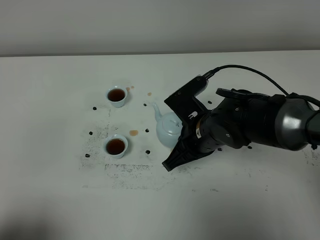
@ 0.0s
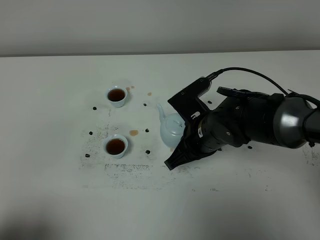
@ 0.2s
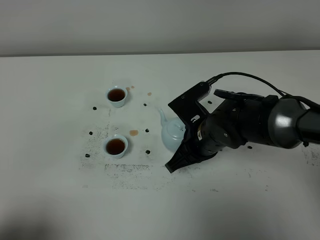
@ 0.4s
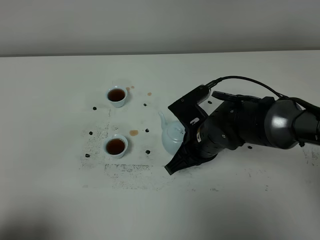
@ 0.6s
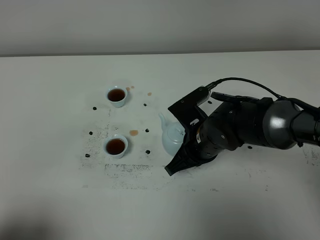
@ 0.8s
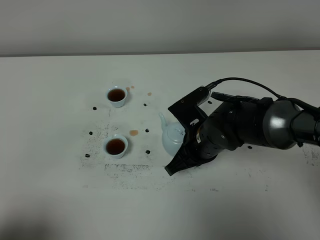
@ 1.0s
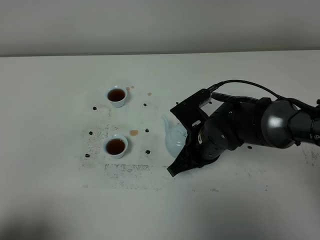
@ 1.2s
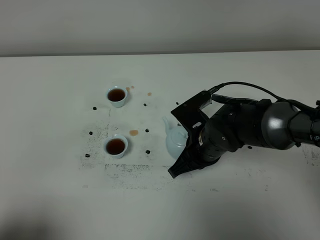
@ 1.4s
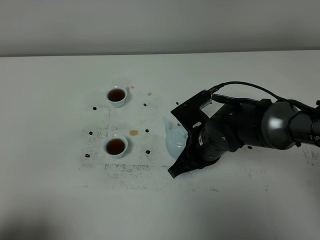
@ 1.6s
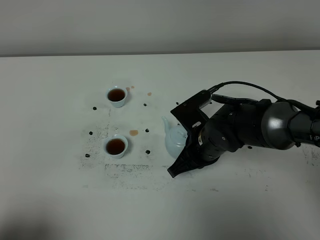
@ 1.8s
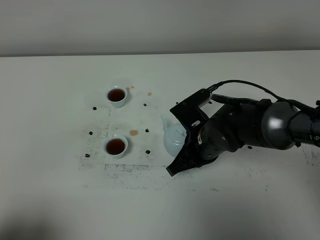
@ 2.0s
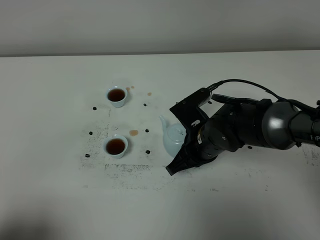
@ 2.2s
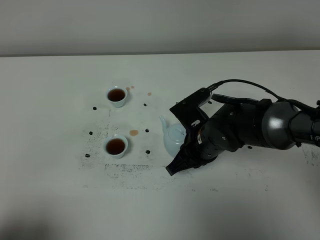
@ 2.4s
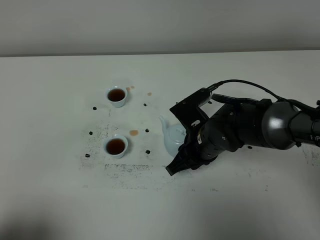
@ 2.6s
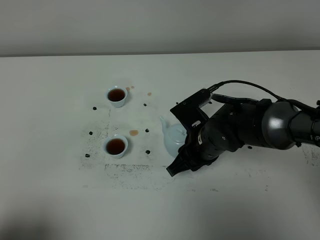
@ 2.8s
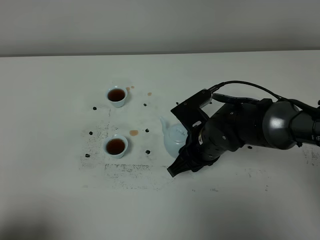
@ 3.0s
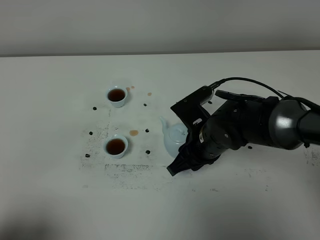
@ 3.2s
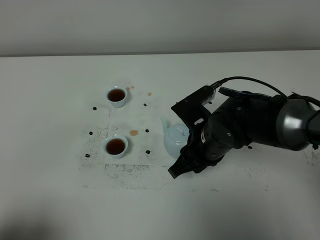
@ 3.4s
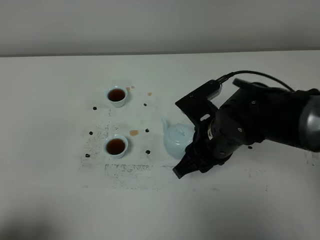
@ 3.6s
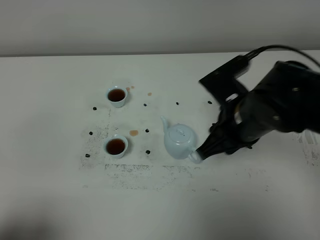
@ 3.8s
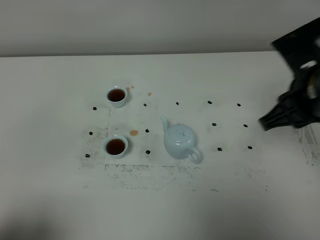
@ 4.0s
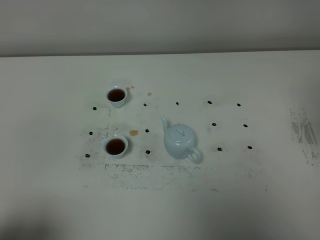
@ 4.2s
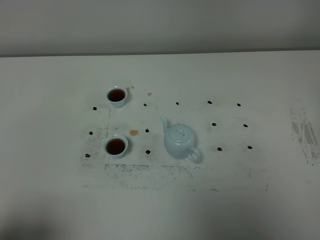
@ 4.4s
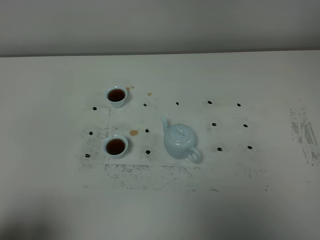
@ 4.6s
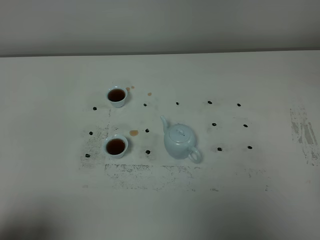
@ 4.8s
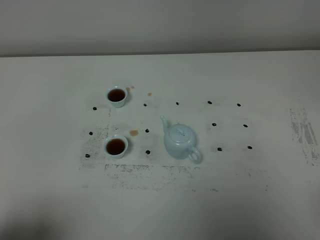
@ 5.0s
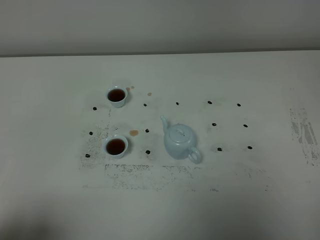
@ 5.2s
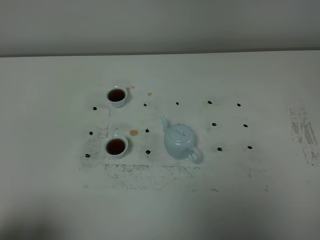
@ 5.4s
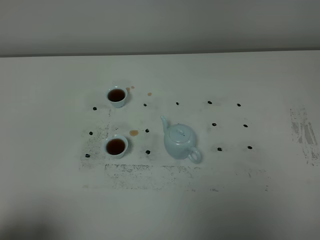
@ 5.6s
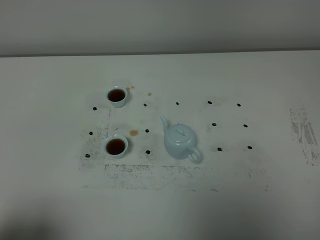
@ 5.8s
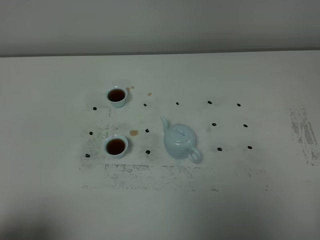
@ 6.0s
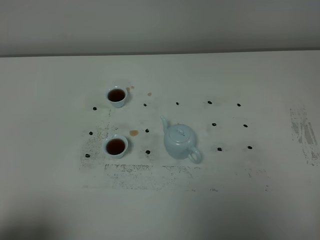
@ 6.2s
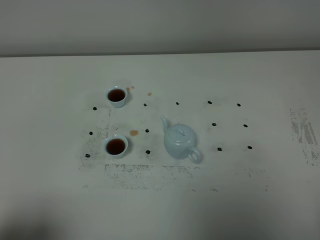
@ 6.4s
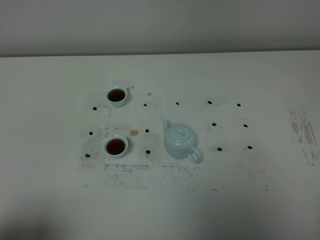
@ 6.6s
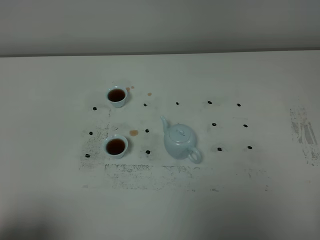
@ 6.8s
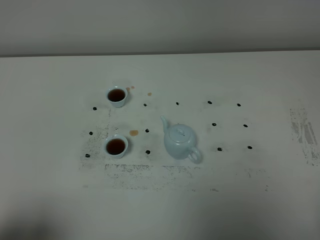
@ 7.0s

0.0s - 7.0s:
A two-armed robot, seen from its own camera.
Task of the whole recording: grasp the blue porcelain teapot and pour the tea into the two blue porcelain teacups one by one, put the blue porcelain teapot back in its original place.
0.0s - 1.4s: The grippers stay close to where they were, moving slightly.
1.4s - 2.8s: The right gripper opens its fingers.
2.8s - 4.2s: The right gripper moves upward, to the right and backward, some 30 cm.
5.6s - 7.0s: Both grippers stay put.

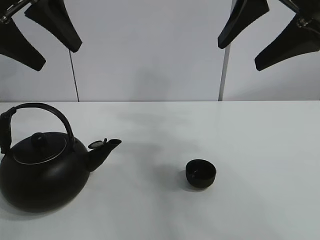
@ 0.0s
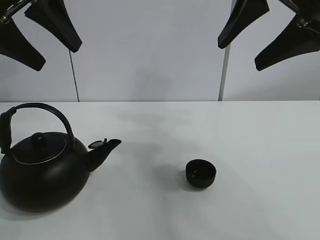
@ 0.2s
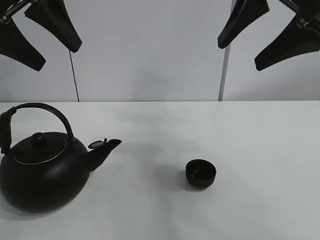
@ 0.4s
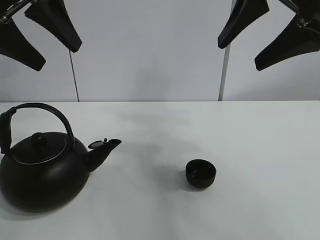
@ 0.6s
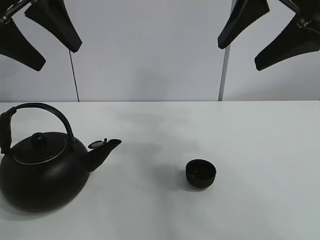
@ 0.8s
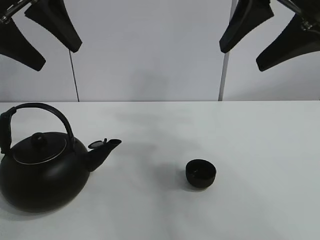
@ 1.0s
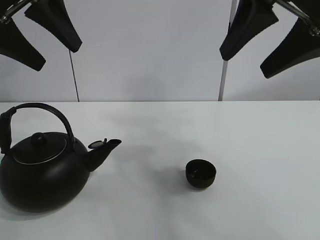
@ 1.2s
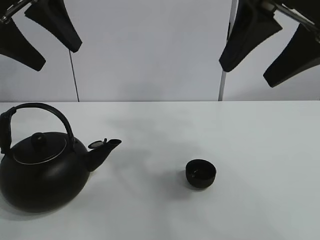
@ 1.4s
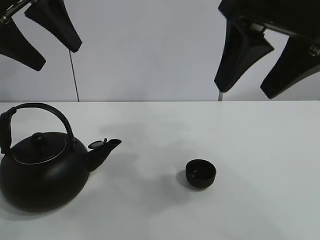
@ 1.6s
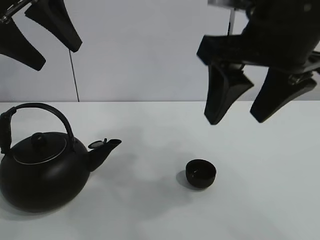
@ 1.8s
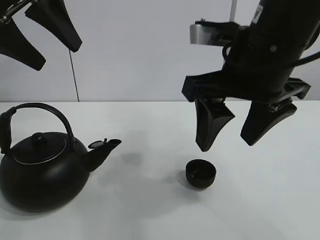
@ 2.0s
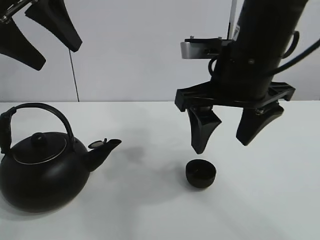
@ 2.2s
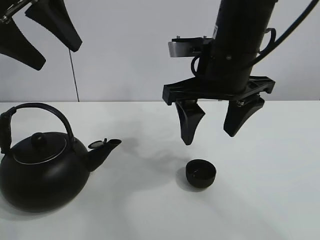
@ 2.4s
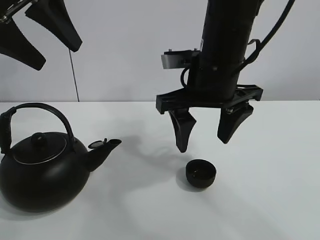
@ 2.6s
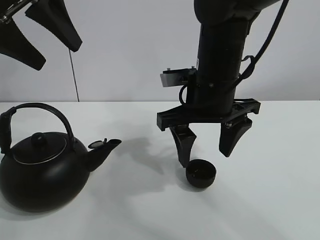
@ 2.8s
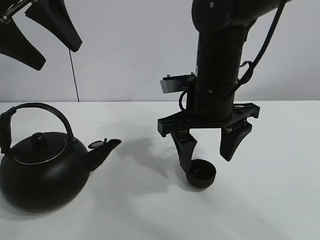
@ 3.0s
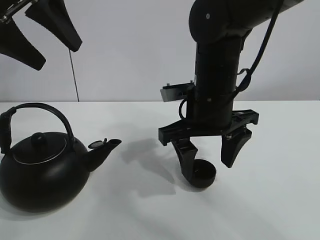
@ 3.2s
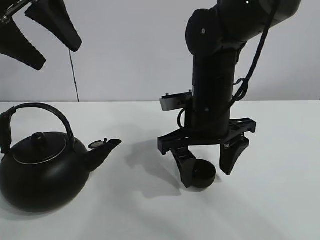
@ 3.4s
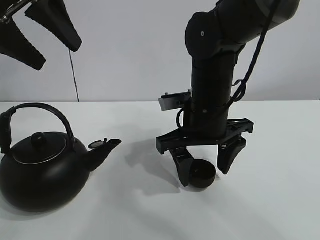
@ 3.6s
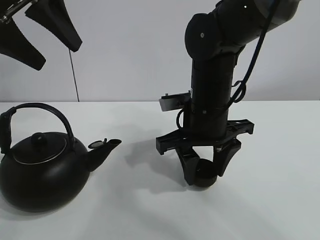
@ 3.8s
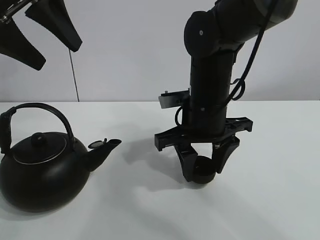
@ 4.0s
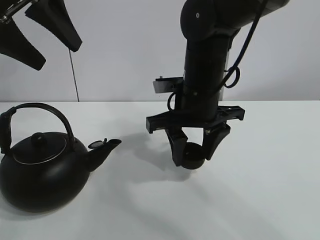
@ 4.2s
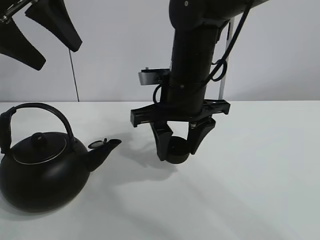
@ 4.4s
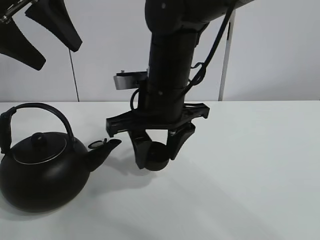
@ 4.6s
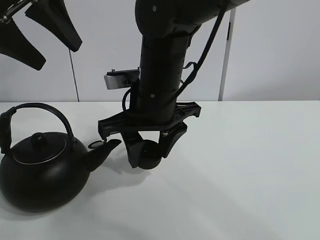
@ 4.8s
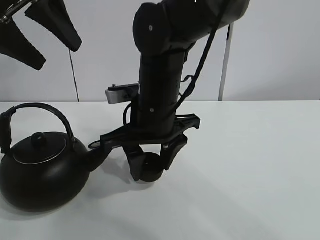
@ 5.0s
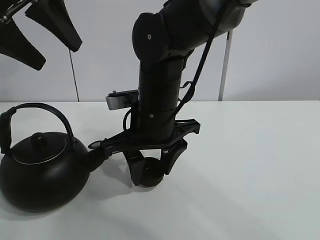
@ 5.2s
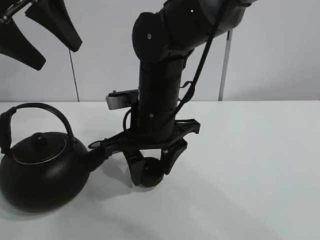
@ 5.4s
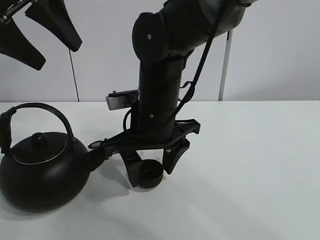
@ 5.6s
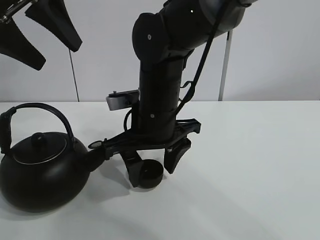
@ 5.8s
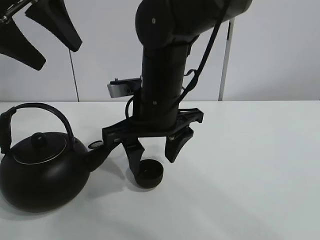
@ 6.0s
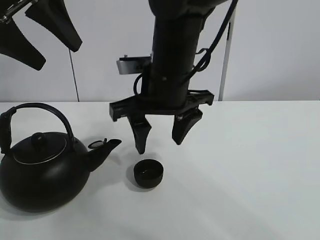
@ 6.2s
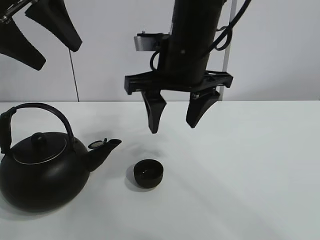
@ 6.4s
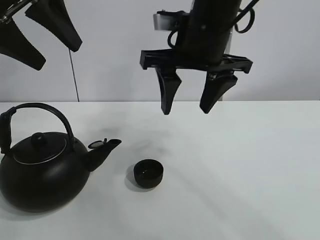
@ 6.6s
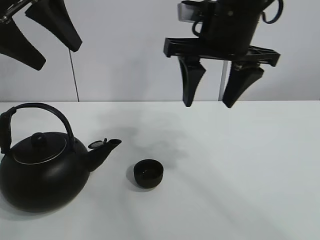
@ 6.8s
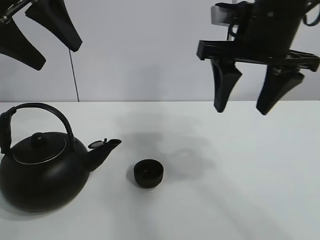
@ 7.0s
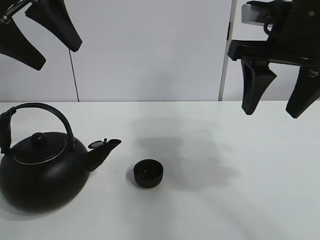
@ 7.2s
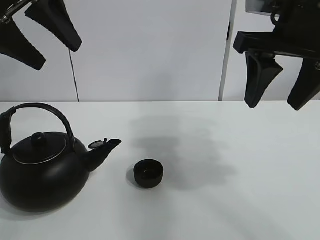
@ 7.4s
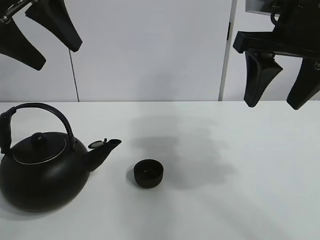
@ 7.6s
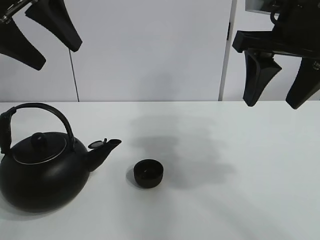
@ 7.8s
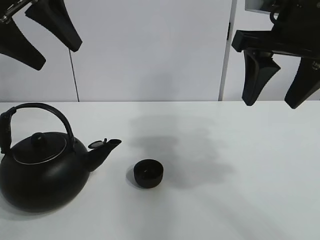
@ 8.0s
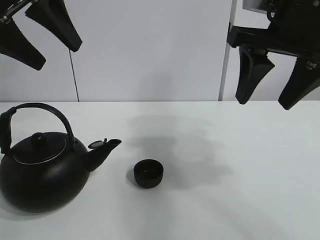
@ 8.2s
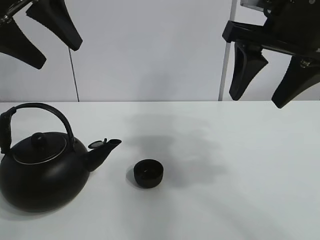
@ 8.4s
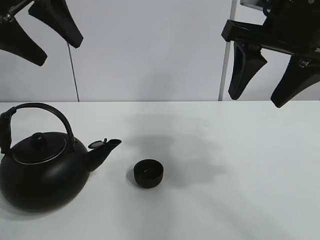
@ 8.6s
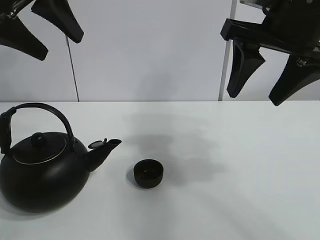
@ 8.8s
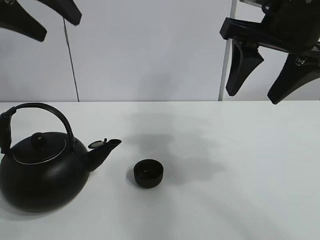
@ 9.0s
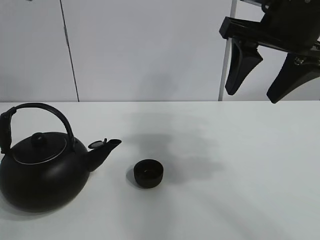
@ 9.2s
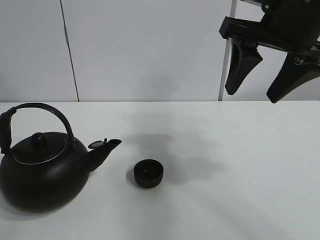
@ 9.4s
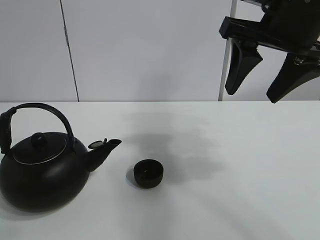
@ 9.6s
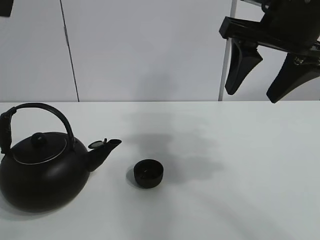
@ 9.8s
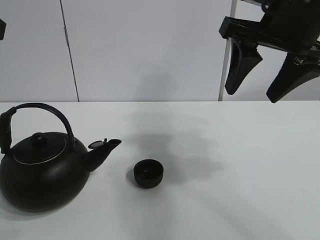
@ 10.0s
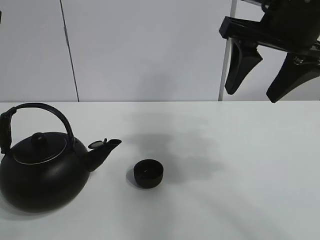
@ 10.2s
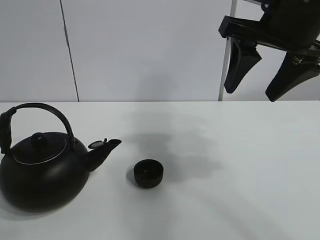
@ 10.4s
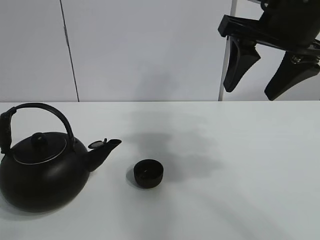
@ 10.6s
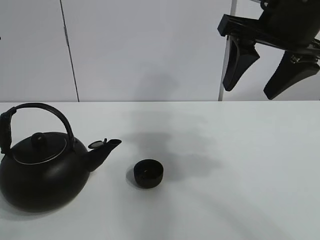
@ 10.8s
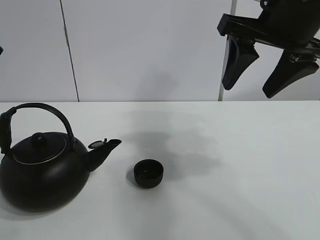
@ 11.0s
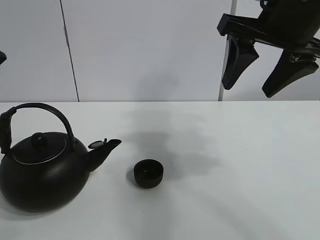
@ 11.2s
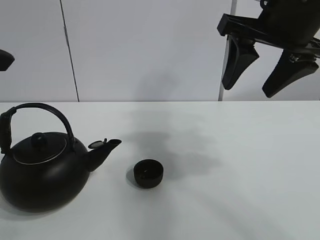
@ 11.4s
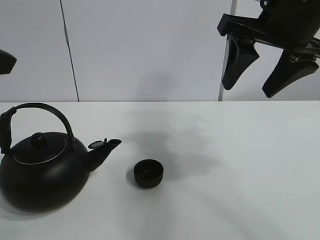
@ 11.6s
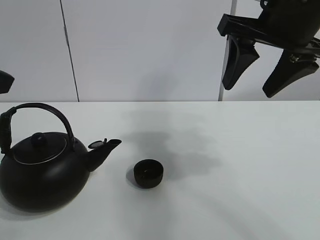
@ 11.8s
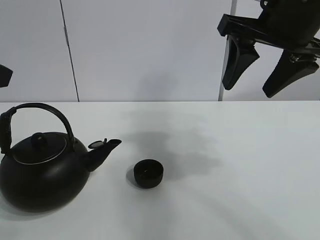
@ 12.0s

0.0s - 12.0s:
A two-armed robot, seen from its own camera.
Task of the whole recording: pour tea into the teacup.
Step, 0.0s - 3.8s: Pick up the teacup with the right gripper.
Step, 4.0s - 5.8s: Place the teacup in the center of view with the right gripper.
1.6s - 3.0s: The right gripper is displaced downward, forward and to the left by approximately 20 cm.
3.0s - 4.4s: The right gripper closes up.
4.4s - 6.0s: The right gripper opens.
6.0s - 7.6s: The right gripper heads to the right and upward, covering approximately 20 cm.
7.6s - 9.0s: The grippers make only small movements.
9.0s - 10.4s: The left gripper moves backward and to the left, roughly 10 cm.

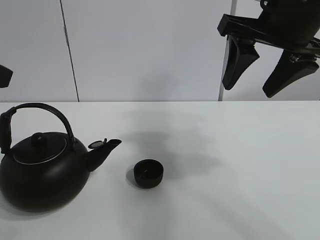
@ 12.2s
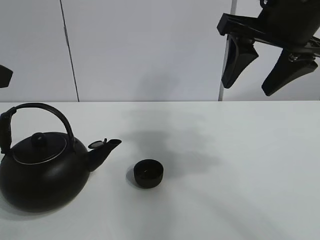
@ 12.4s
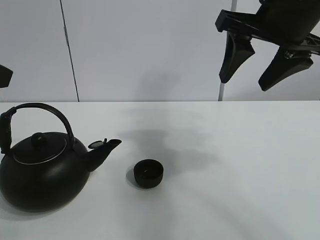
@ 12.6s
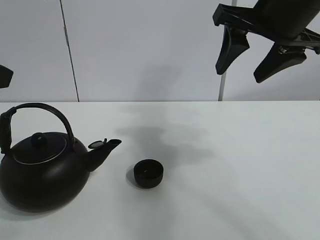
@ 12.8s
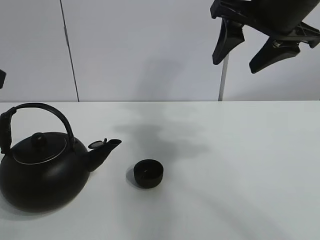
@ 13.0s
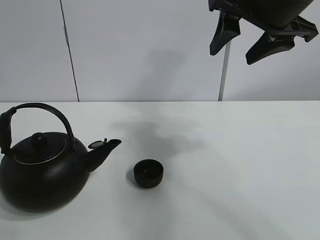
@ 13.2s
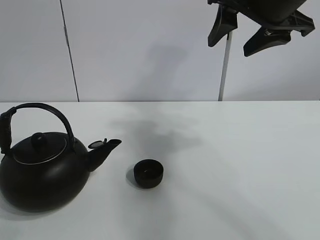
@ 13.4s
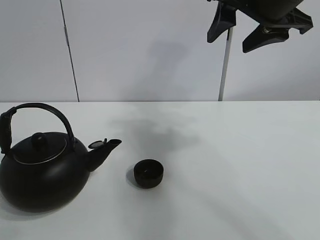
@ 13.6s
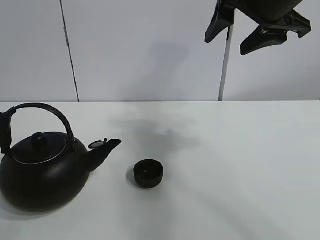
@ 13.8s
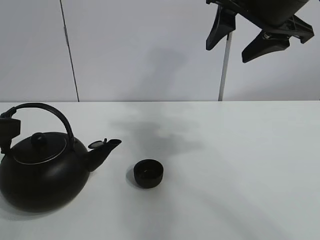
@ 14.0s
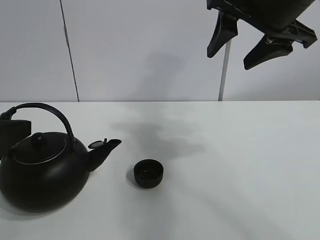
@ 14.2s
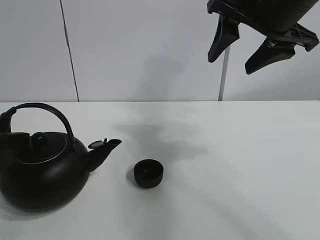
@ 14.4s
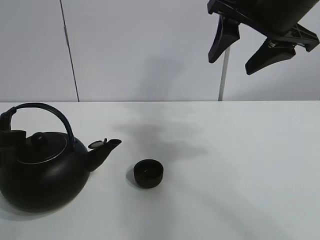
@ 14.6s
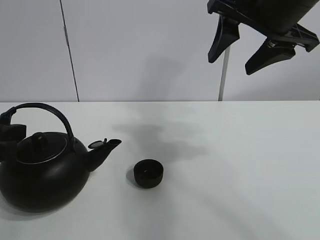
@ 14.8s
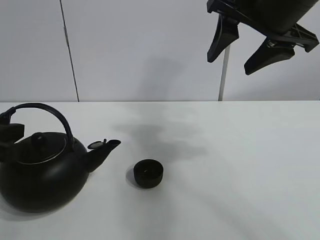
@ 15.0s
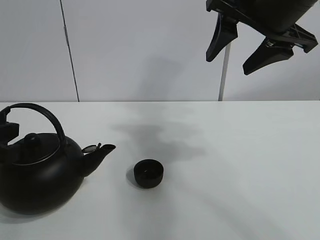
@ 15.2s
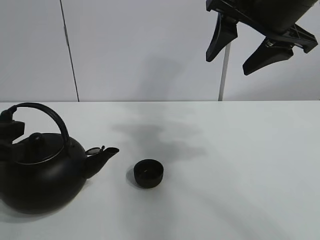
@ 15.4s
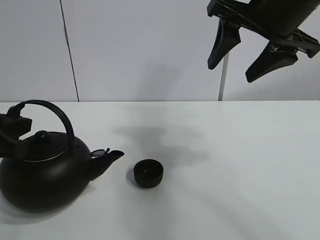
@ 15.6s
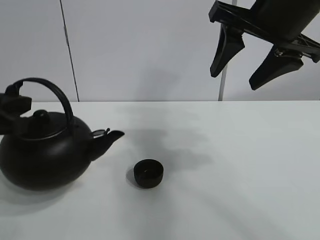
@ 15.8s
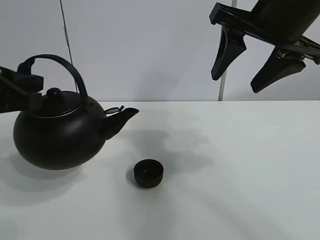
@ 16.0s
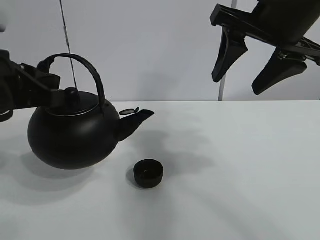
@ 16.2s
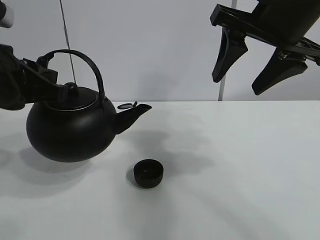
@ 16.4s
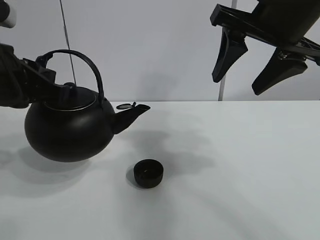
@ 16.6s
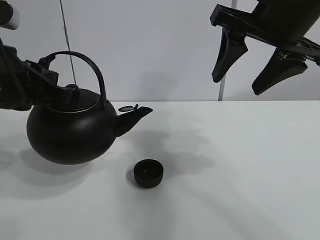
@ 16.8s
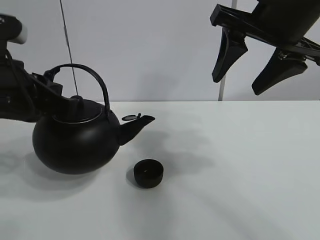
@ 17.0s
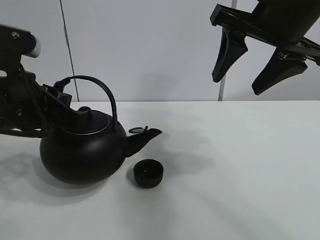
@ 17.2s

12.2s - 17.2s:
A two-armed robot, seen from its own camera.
Task of the whole recording: pour tea into the teacup.
Step, 12.2s - 15.2s: Pick up the teapot with the left gripper.
12.2s - 13.8s: The left gripper heads downward, covering roughly 10 cm.
13.8s - 15.6s: The left gripper moves forward, roughly 5 cm, and closes up.
15.6s - 17.2s: The left gripper travels to the right by some 5 cm.
